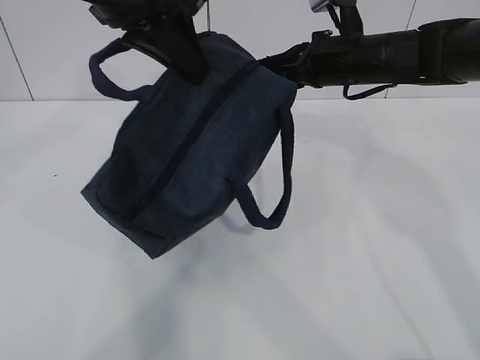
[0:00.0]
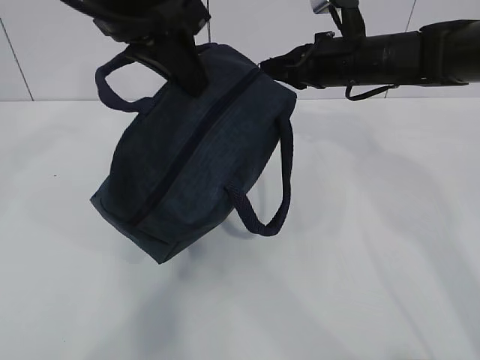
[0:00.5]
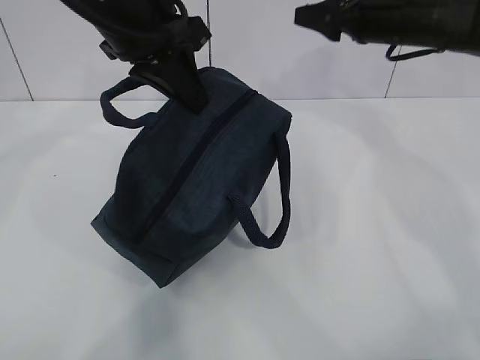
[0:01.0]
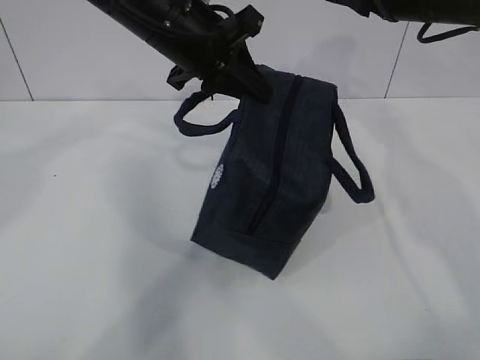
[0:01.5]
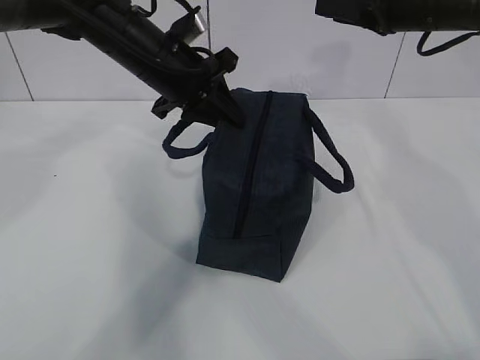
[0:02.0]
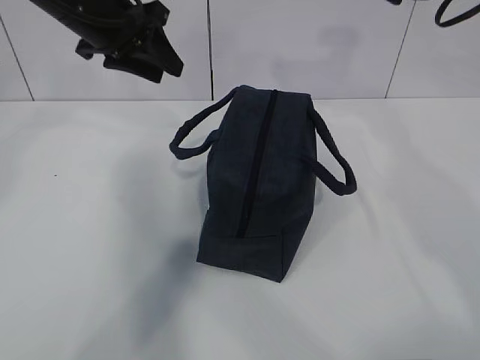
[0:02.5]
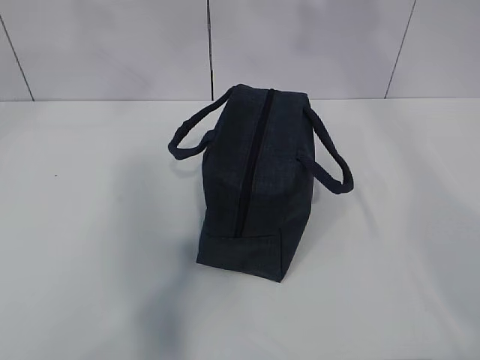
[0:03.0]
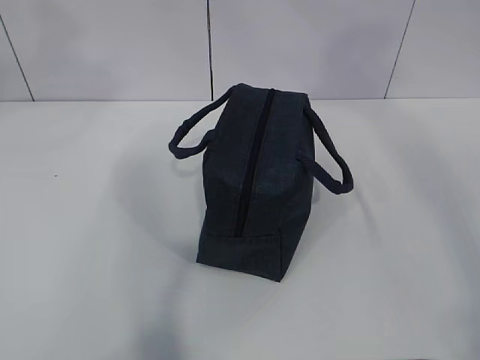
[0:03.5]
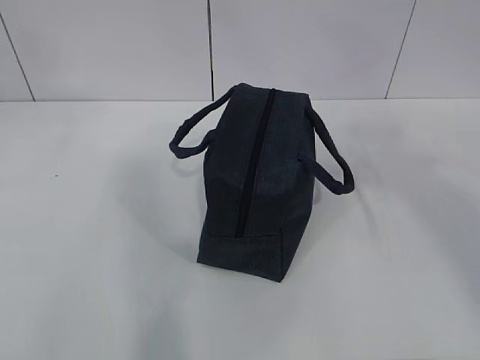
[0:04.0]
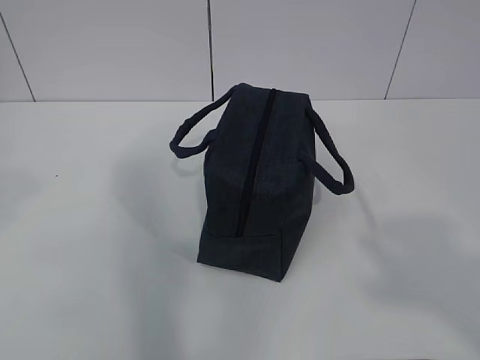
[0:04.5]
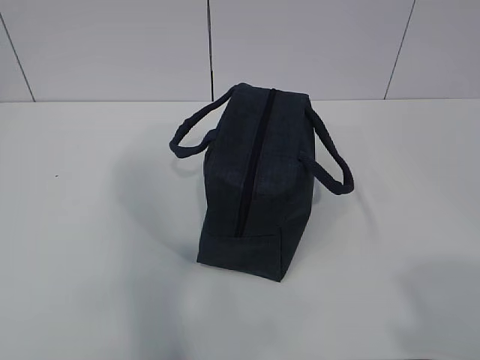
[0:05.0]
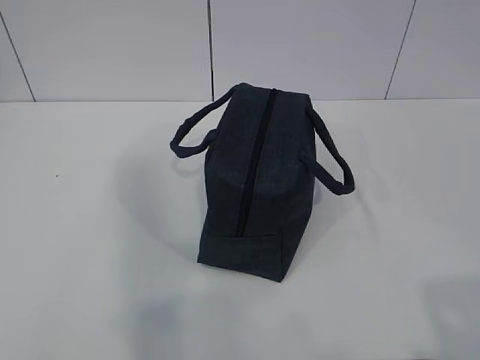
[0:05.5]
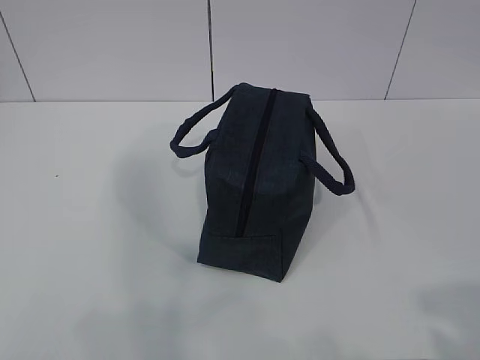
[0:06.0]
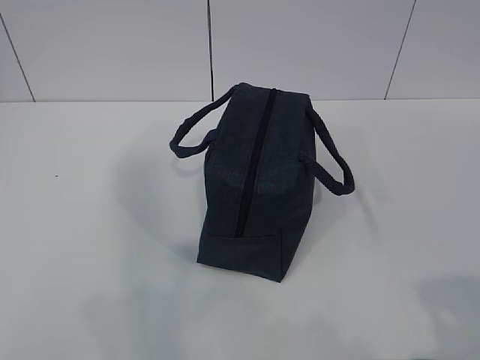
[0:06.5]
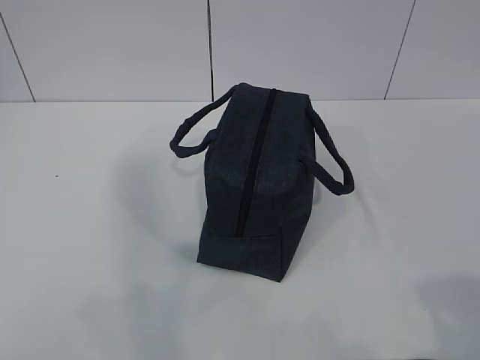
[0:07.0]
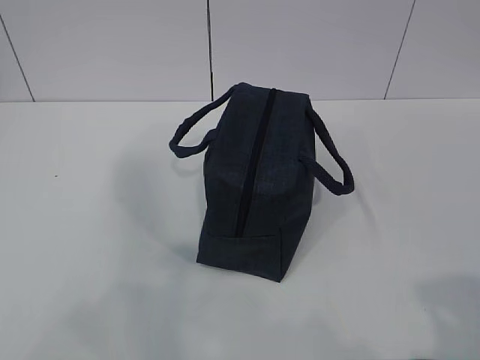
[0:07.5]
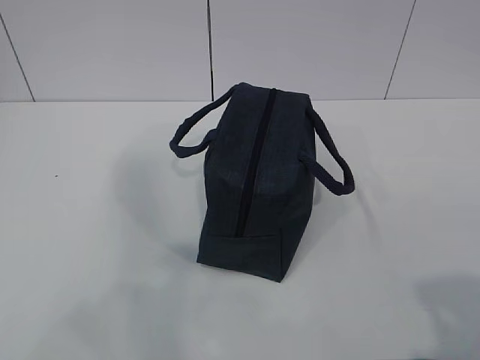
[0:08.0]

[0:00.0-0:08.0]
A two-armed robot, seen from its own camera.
0:00.0 to 0:02.0: The left gripper heads downward and forward, covering roughly 15 cm, while the right gripper travels upward and to the right by about 10 cm, and opens.
0:02.0 to 0:04.0: The right gripper heads backward and upward, covering about 40 cm; the left gripper is displaced upward, backward and to the left by roughly 40 cm, and opens.
0:04.0 to 0:06.0: The right gripper heads downward, covering approximately 25 cm.
